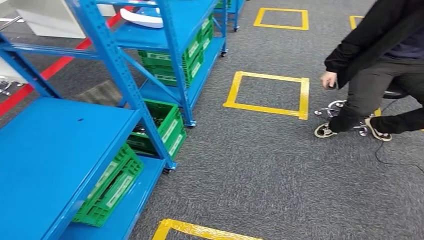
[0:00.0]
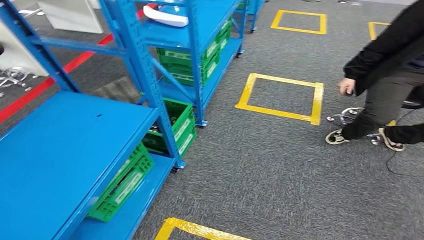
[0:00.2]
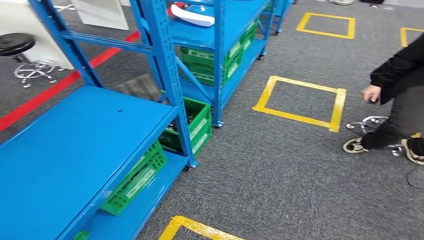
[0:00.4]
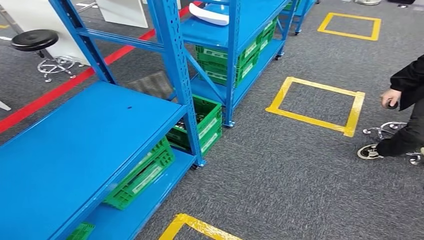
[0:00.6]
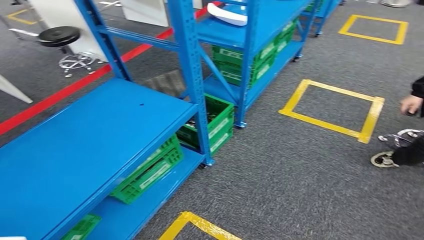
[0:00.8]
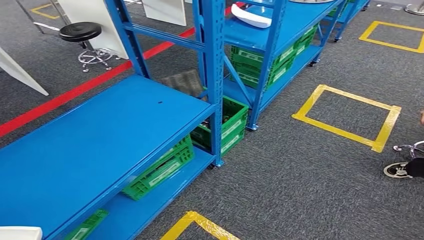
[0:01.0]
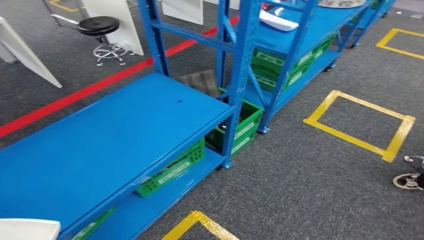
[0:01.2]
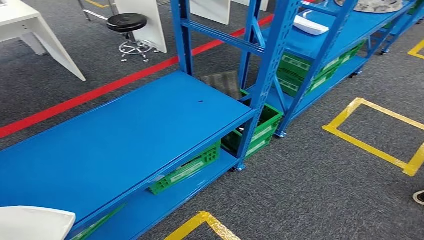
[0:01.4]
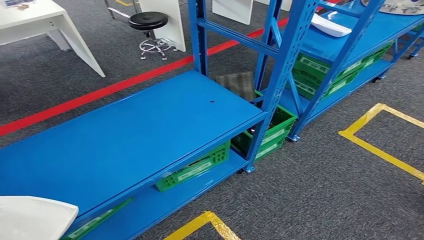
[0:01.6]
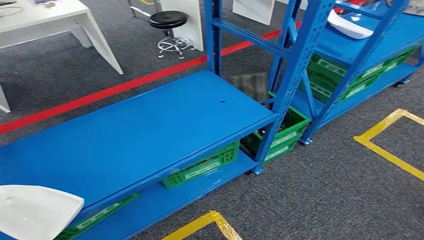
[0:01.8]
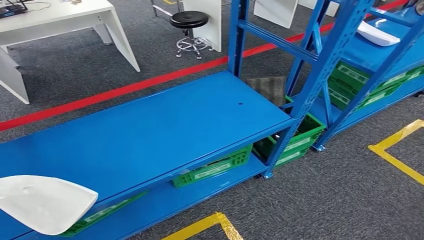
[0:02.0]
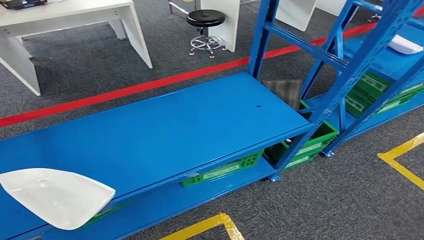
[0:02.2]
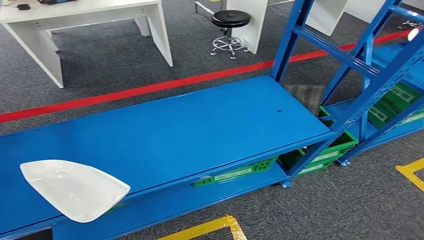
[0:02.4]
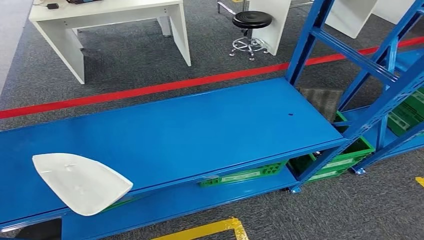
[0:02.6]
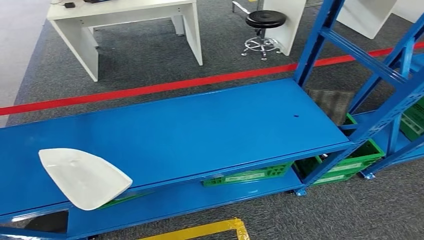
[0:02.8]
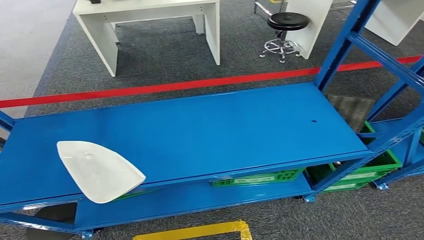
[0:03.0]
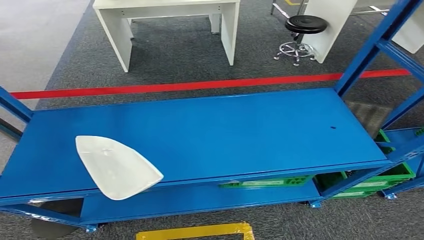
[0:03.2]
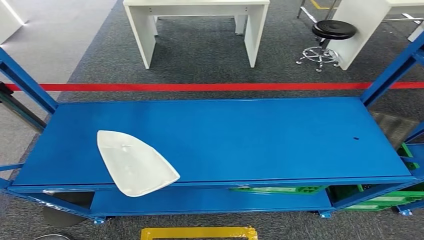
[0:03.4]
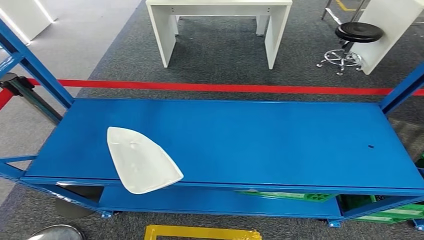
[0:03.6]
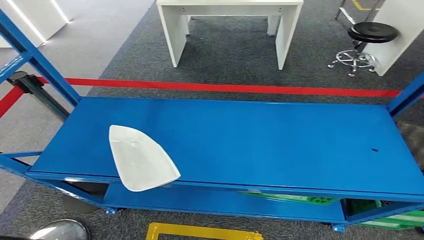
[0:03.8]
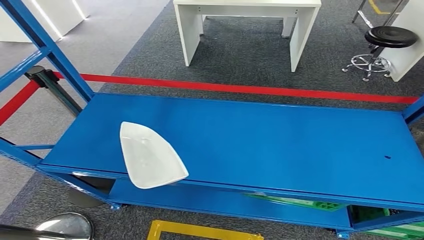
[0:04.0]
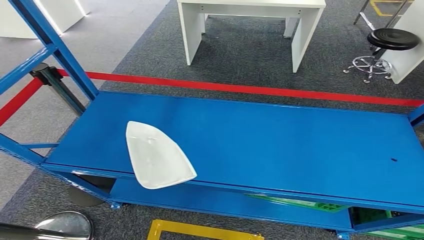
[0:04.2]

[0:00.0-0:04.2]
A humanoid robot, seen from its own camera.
Step, 0:00.0 to 0:04.2: Move to the initial position of the workbench.
